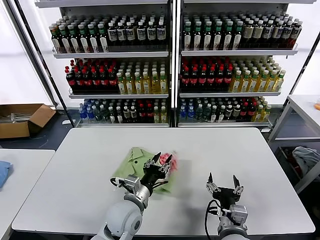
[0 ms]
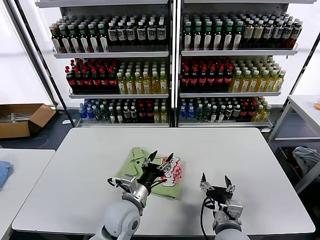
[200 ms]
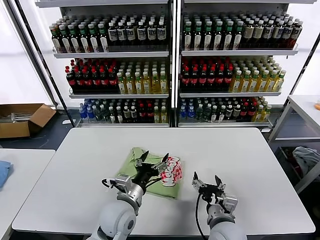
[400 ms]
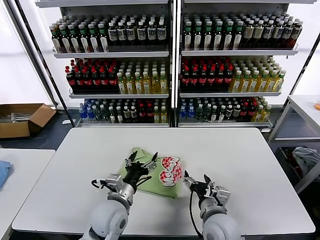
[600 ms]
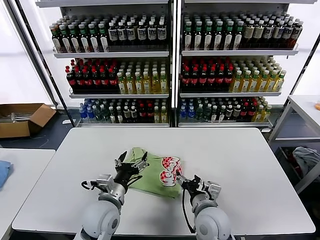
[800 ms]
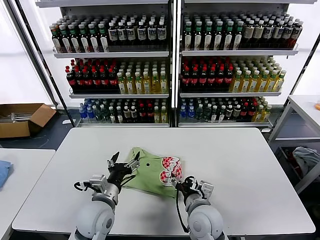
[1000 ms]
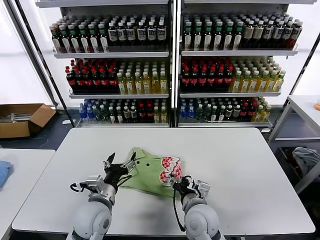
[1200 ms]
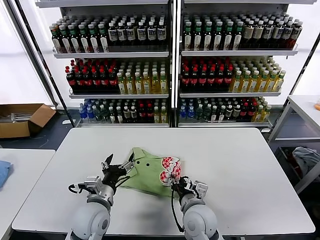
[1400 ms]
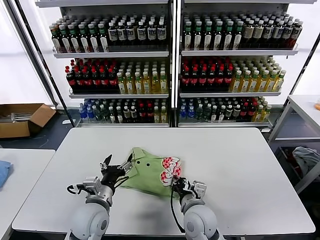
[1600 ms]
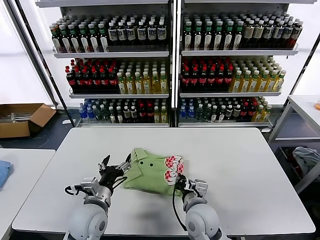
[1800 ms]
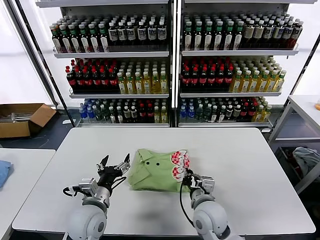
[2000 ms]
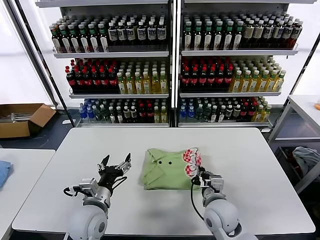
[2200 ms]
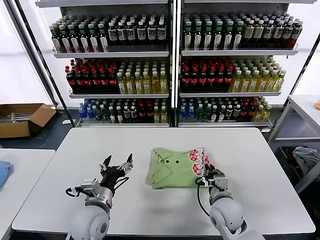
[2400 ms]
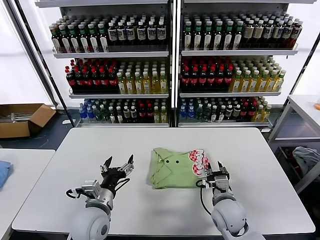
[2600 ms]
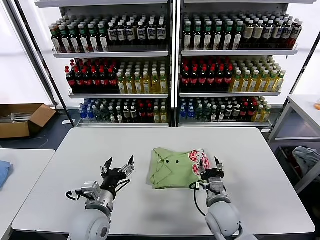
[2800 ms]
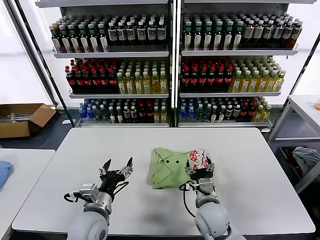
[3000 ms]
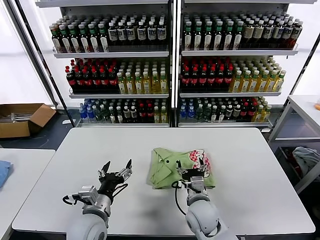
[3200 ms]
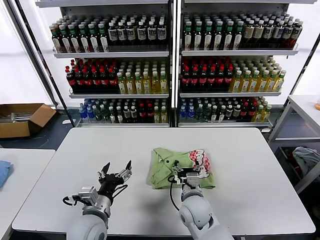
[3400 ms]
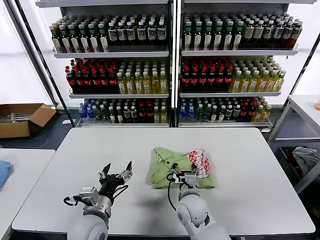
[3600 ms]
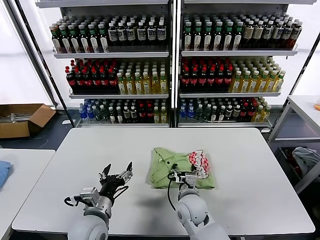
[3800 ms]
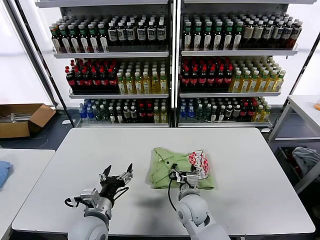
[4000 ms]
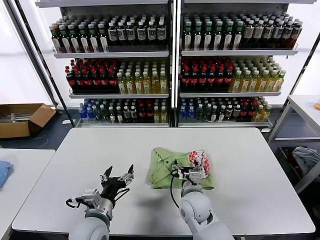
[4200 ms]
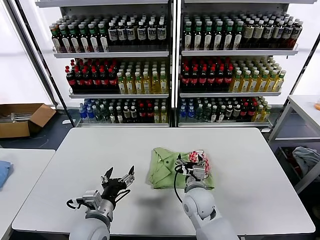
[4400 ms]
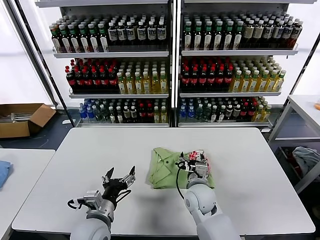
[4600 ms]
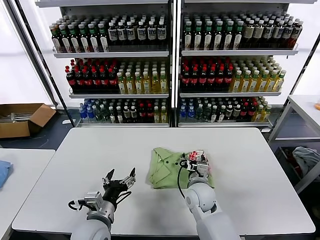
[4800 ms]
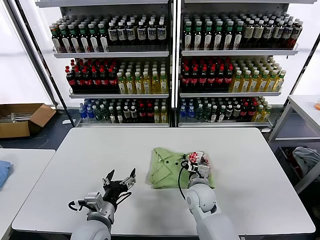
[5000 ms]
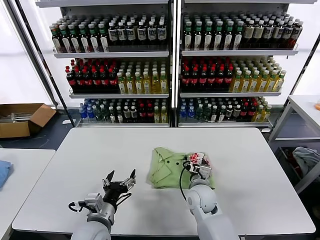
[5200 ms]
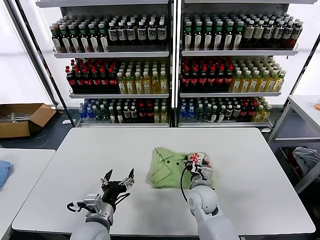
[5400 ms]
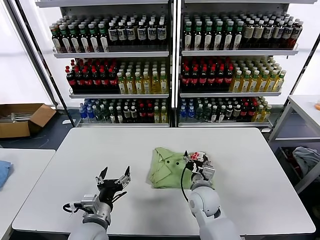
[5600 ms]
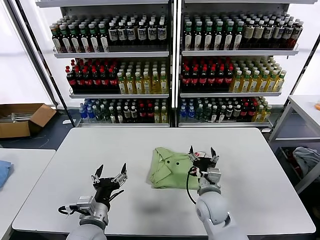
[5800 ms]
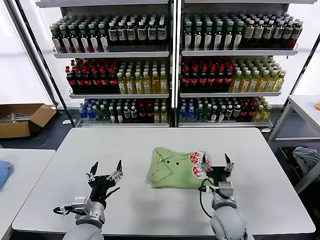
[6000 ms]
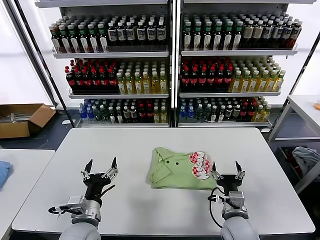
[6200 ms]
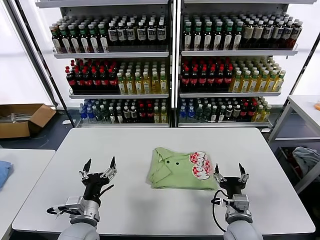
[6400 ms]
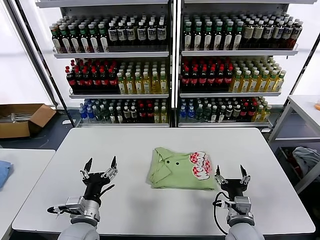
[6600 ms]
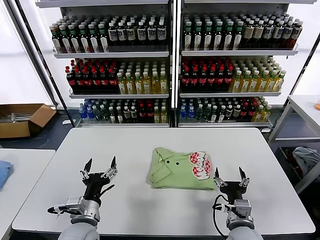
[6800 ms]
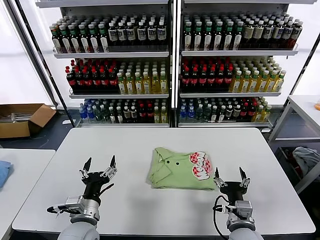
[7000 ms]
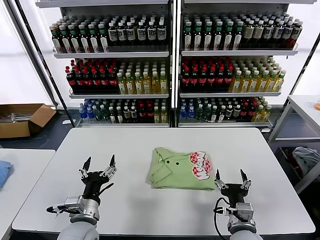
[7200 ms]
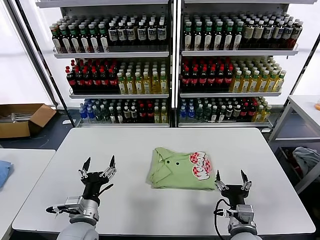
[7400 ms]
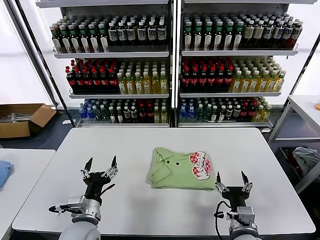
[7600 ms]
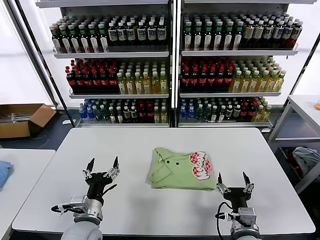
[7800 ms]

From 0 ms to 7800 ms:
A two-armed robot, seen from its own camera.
Task of the whole recording: fold and organize the clothes.
Step, from 200 ms to 5600 ms: Drag the clothes to the center of the table.
From 0 ms to 1600 ms: The left gripper goes some 10 cm to the left, and opens its fingers, while the right gripper travels forward and to the left by about 10 cm, and closes its fingers.
From 1600 ms to 3200 ms: The right gripper reaches roughly 10 cm to the right, then returns, and opens.
From 3200 ms to 4600 ms: The right gripper goes approximately 5 cm forward.
From 4600 ms to 6200 ms: The right gripper shifts approximately 15 cm backward and to the right.
From 6200 ms to 7800 ms: The right gripper travels backward by roughly 5 cm.

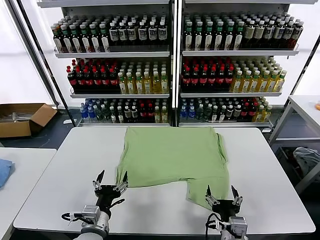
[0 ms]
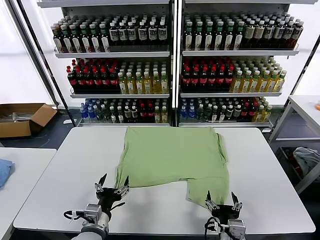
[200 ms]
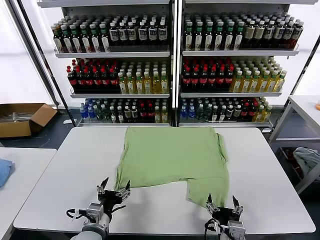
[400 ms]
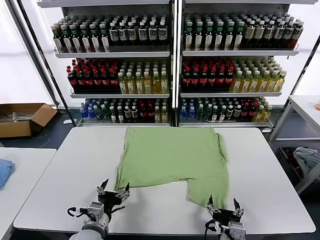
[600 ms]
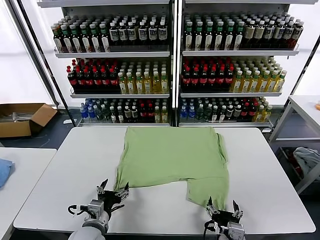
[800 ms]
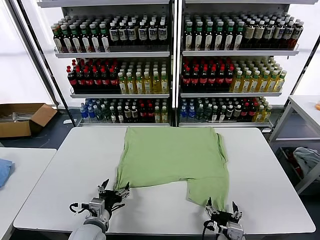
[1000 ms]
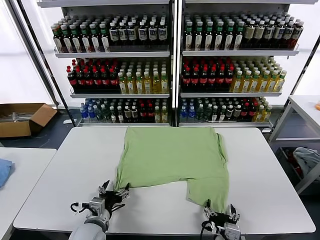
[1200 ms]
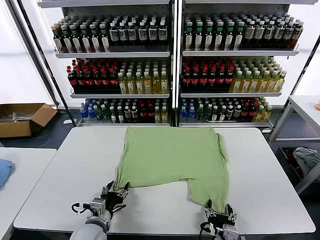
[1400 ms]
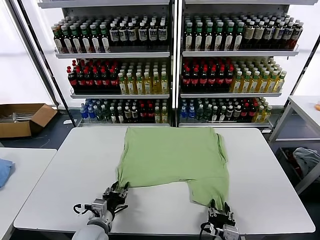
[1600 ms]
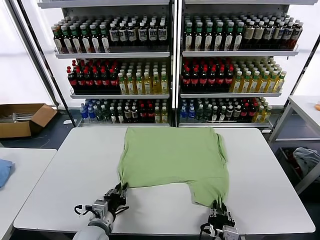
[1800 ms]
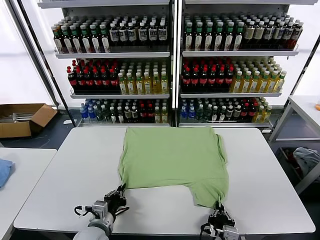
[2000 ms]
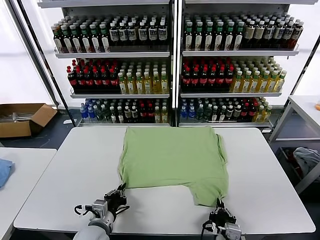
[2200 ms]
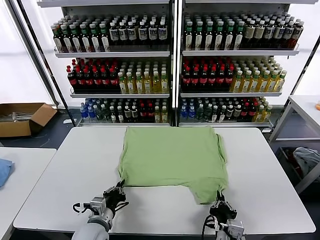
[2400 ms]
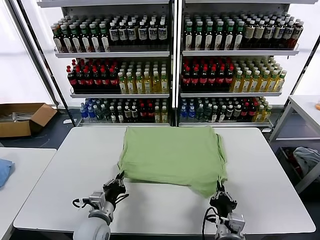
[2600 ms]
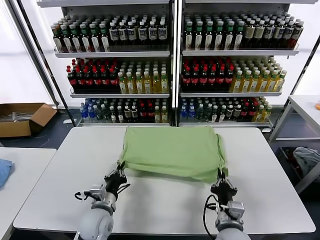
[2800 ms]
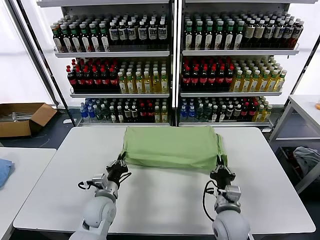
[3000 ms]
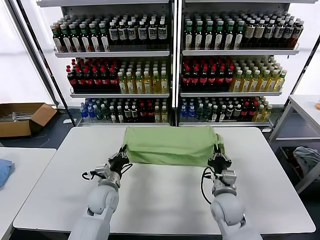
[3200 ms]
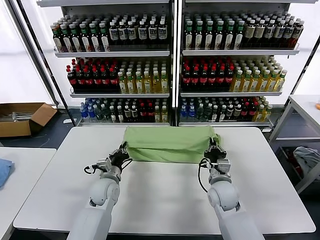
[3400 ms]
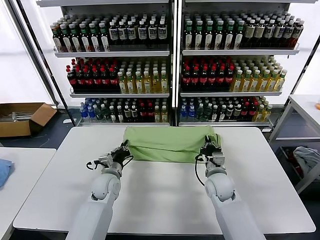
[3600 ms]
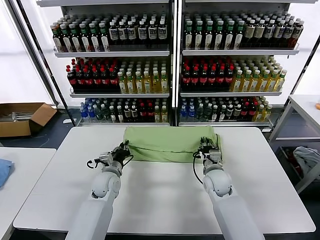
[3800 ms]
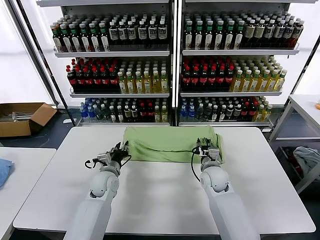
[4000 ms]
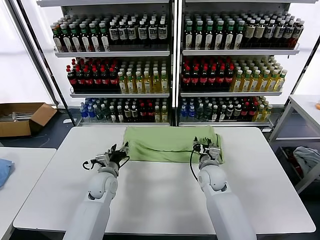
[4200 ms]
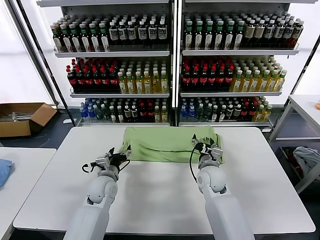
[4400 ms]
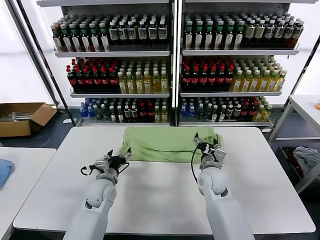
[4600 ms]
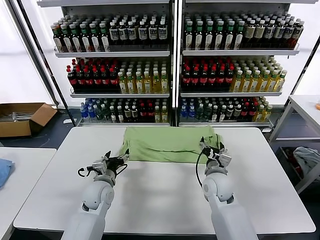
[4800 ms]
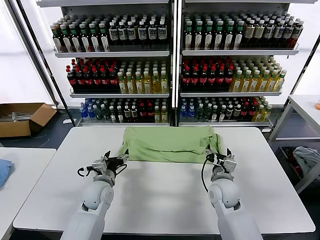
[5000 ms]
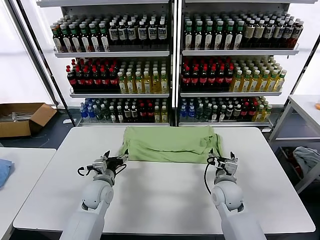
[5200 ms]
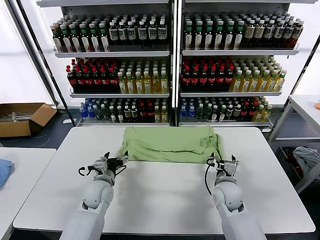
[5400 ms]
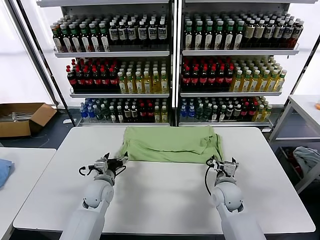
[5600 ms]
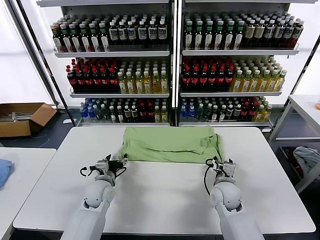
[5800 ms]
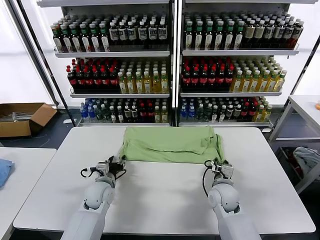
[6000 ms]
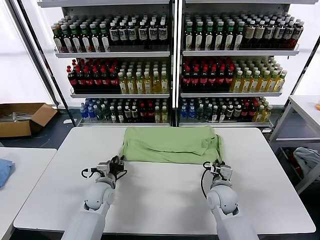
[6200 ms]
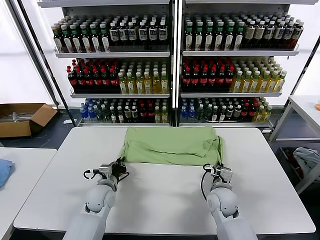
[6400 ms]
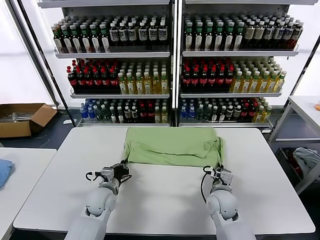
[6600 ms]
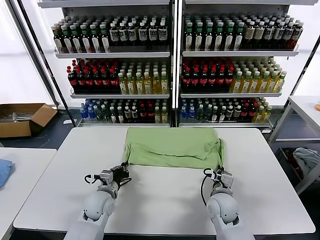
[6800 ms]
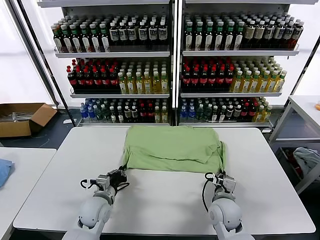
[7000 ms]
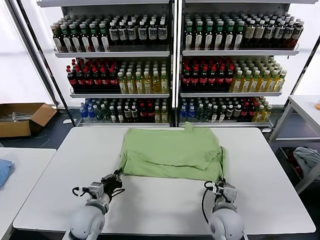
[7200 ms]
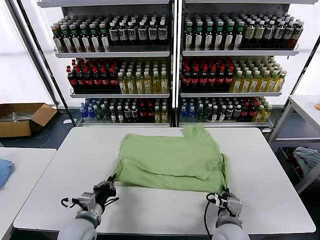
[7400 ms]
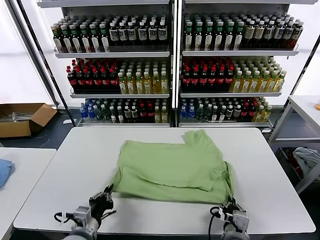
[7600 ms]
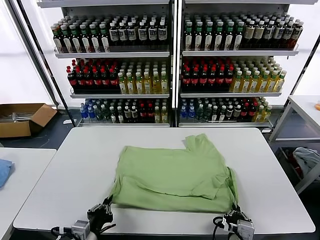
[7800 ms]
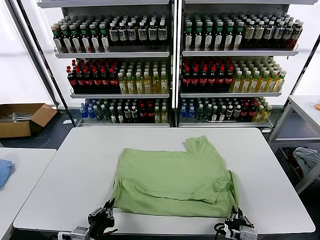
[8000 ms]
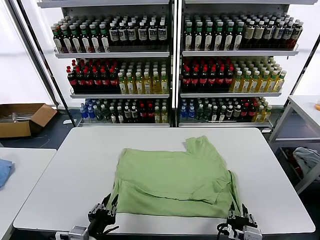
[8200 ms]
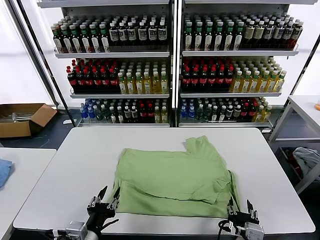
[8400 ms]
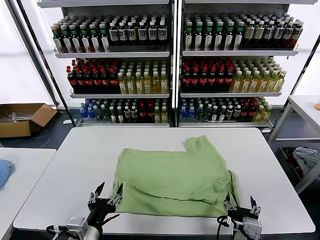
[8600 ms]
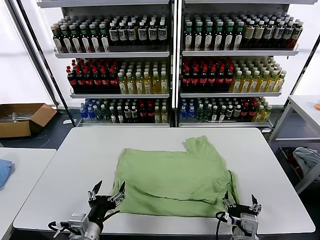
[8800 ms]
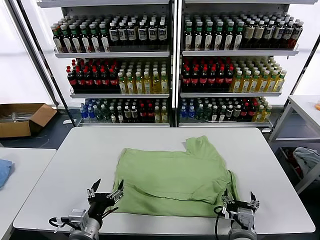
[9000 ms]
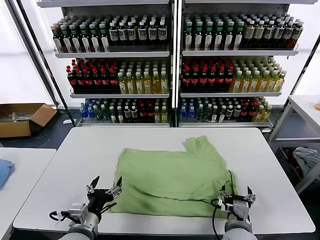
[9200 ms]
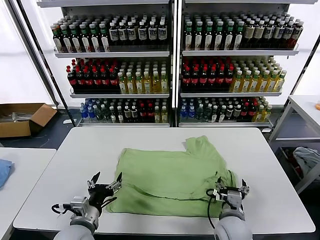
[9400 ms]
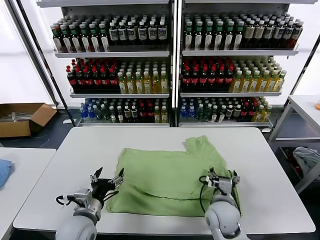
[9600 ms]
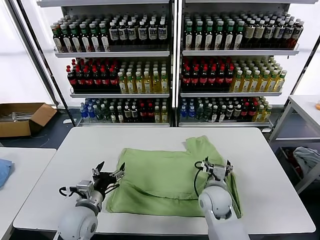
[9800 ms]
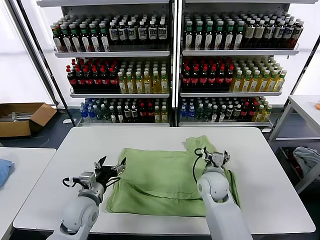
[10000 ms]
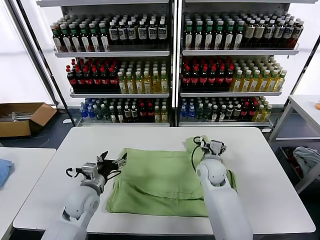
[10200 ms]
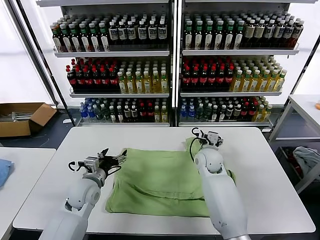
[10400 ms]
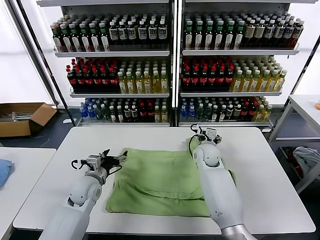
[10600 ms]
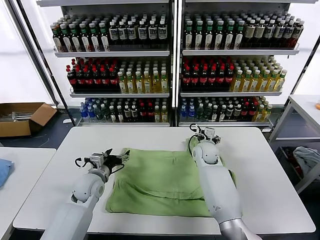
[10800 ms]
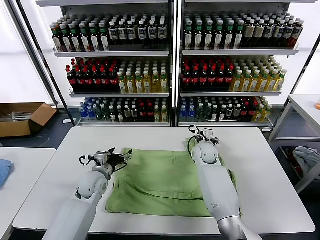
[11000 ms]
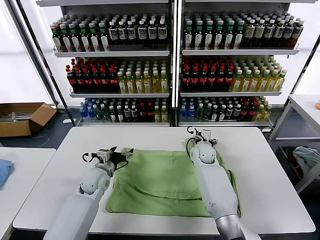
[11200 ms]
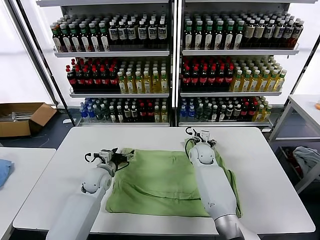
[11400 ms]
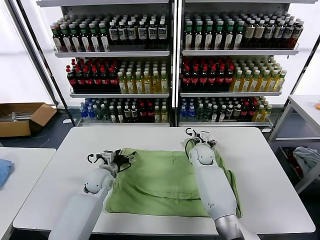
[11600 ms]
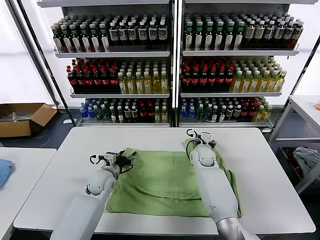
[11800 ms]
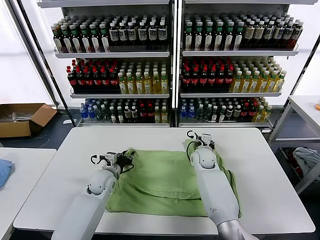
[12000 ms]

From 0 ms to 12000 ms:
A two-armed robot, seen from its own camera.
Task of the whole recording: fold and organize the clothes.
Step, from 0 ms to 2000 ms: use both grippers simultaneously to clamp the lower edge of the clothing fabric.
Step, from 2200 ms to 4200 ms: use both grippers to drag the lower edge of the fabric forward and fold it over the upper edge.
Step, from 4400 ms to 8200 ms: Drag the clothes downward with both gripper.
From 1600 ms to 3000 ms: The right gripper moves forward, about 15 cm, and closes up. Meanwhile the left gripper travels forward by some 10 cm, and closes its fingers.
From 3000 ms to 4400 ms: The right gripper heads forward, covering about 10 cm, and opens, while the left gripper is displaced forward by roughly 5 cm, and opens up.
From 4400 ms to 6000 ms: The left gripper closes its fingers; the right gripper moves some 10 cm, and closes up.
From 6000 ms to 7600 ms: The two grippers go some 20 cm backward. The left gripper closes its fingers.
From 7600 ms to 9000 ms: The right gripper opens up; the left gripper opens up.
From 9000 ms to 10400 ms: The right gripper is displaced forward by about 30 cm, while the left gripper travels forward by roughly 20 cm.
From 10400 ms to 12000 ms: The right gripper shifts approximately 5 cm downward, and closes. Meanwhile the left gripper shifts some 10 cm forward and downward, and closes.

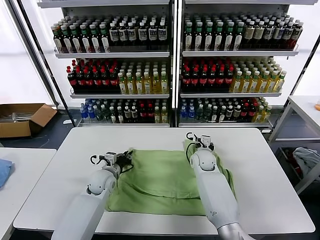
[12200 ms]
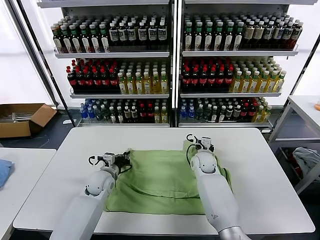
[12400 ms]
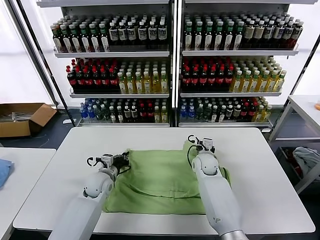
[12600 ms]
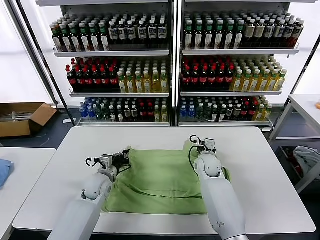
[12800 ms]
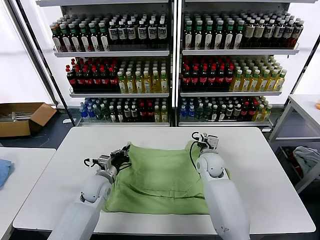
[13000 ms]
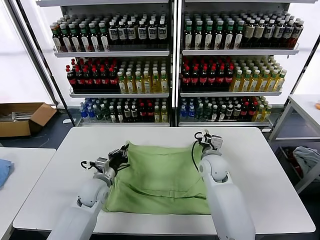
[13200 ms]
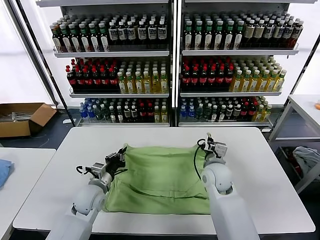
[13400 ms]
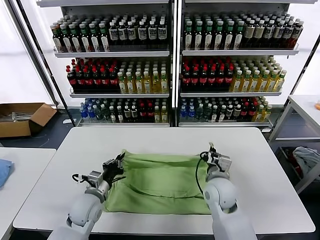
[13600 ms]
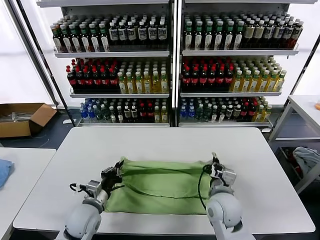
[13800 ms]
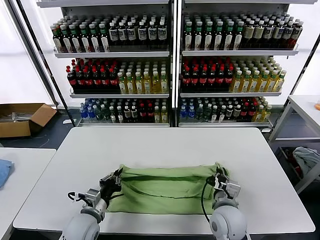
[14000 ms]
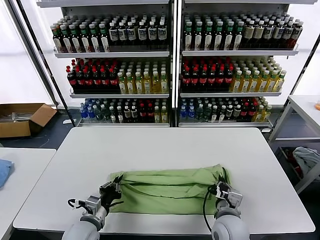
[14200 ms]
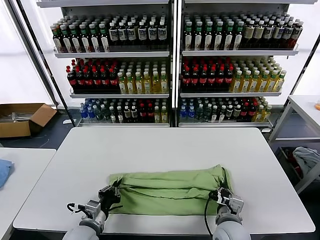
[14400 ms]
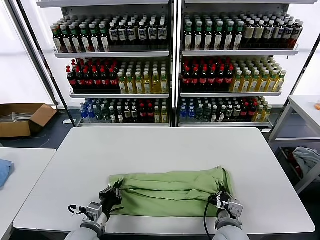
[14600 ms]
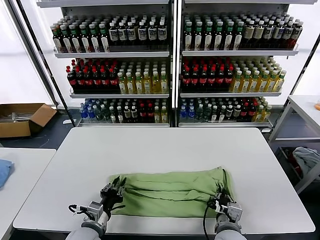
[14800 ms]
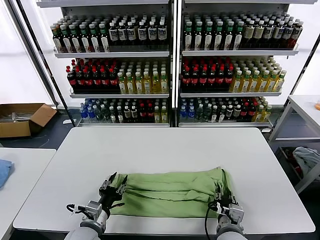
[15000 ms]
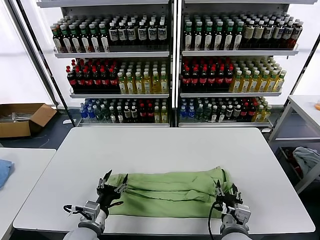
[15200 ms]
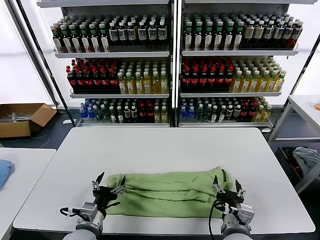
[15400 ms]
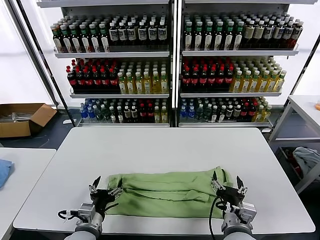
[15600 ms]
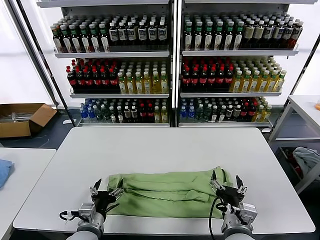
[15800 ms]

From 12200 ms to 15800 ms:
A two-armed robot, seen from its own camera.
Task of the whole recording: fold and organize the clothes.
Step, from 12600 ms to 15400 ms: use both grippers to drag the upper edge of the fabric backward and fold it over the lower edge.
From 12200 ms to 14000 ms: The left gripper travels backward by about 15 cm. The right gripper travels backward by roughly 25 cm.
From 14000 ms to 15800 ms: The right gripper goes roughly 5 cm backward, and opens, while the left gripper changes place by roughly 5 cm, and opens.
